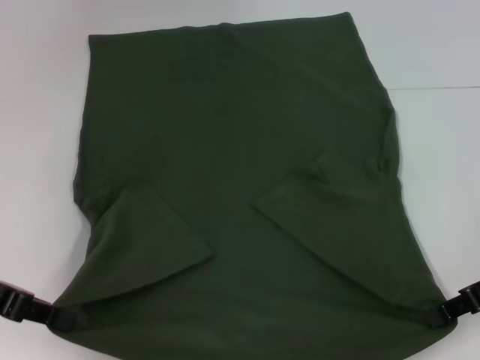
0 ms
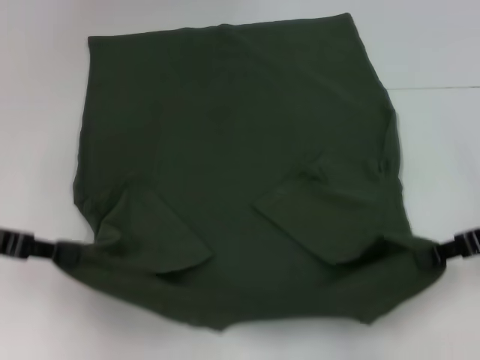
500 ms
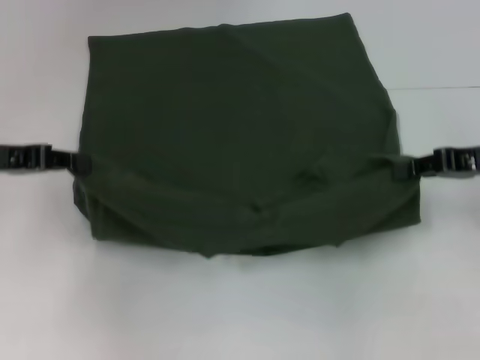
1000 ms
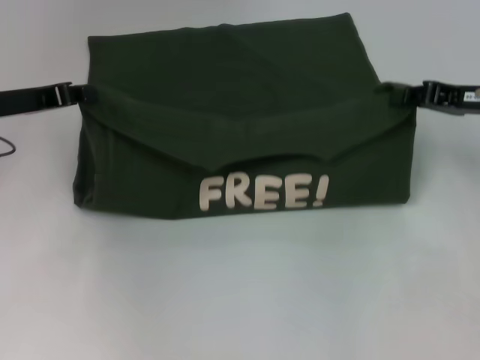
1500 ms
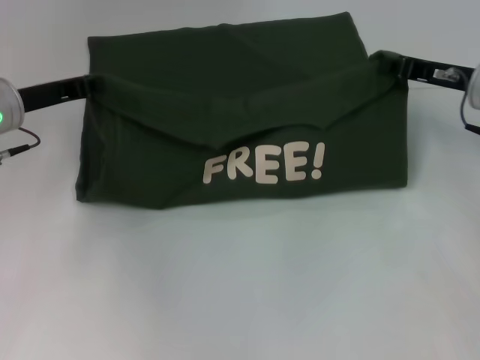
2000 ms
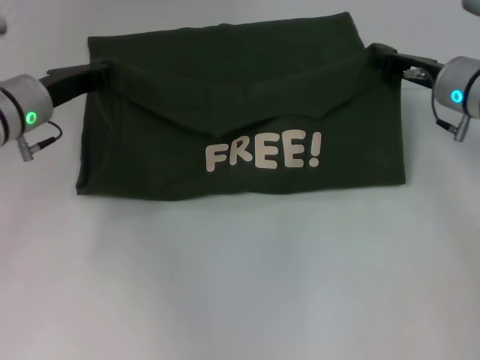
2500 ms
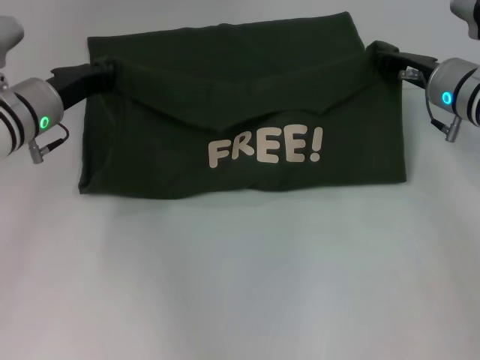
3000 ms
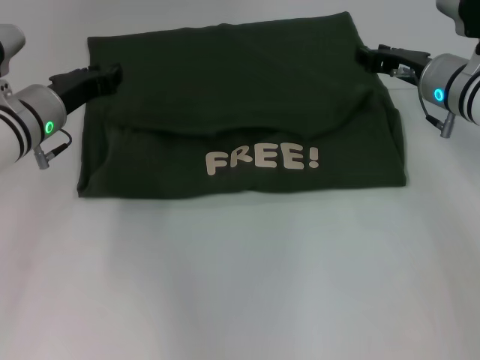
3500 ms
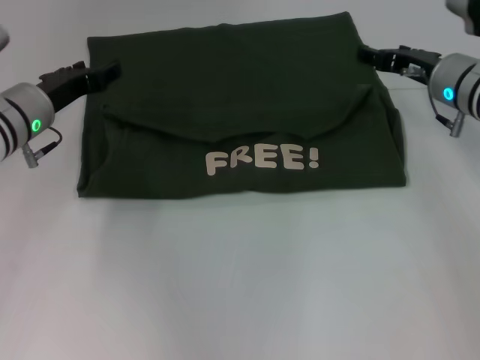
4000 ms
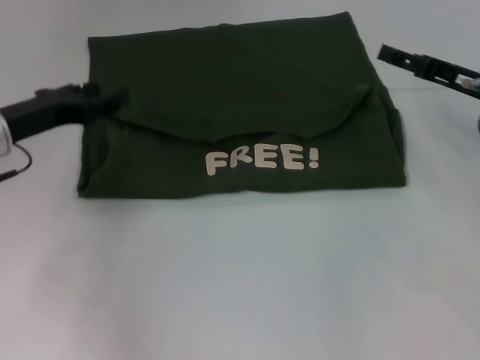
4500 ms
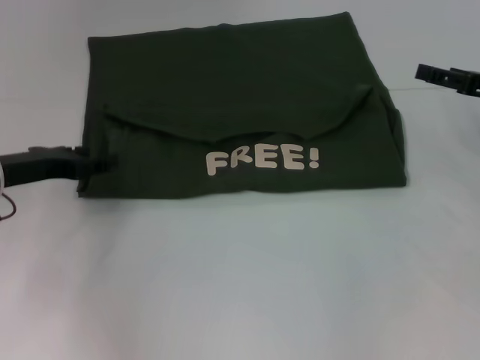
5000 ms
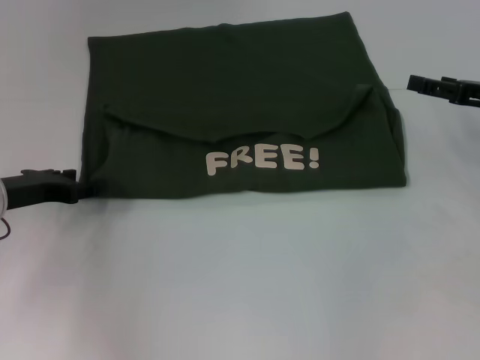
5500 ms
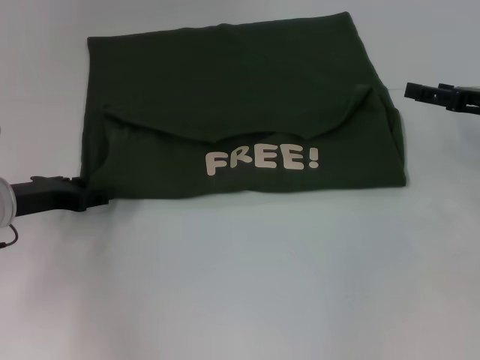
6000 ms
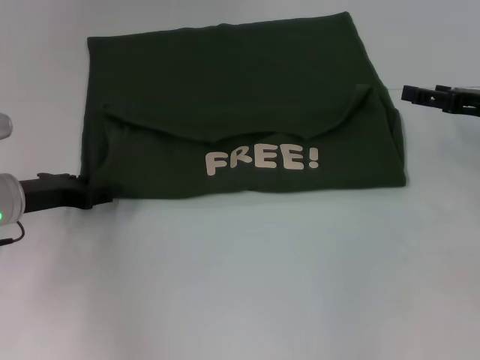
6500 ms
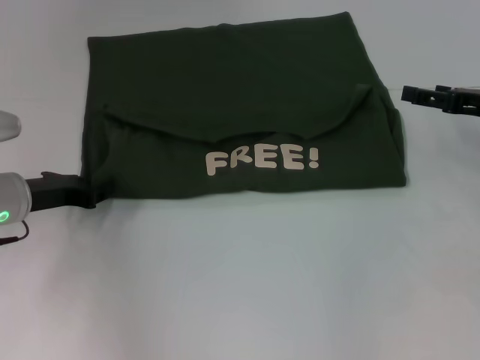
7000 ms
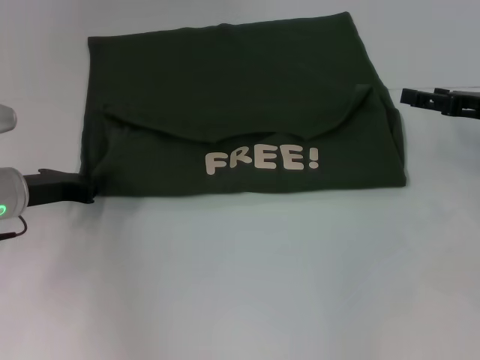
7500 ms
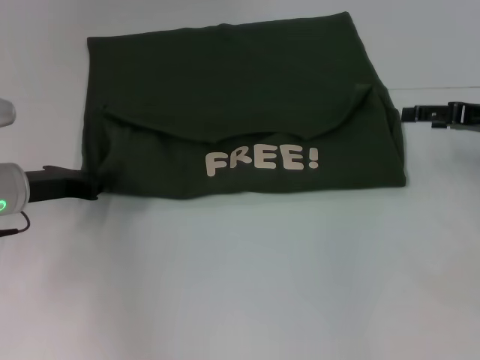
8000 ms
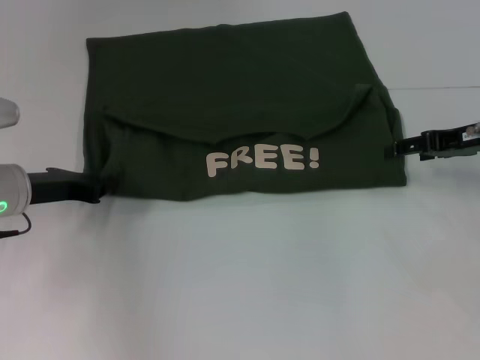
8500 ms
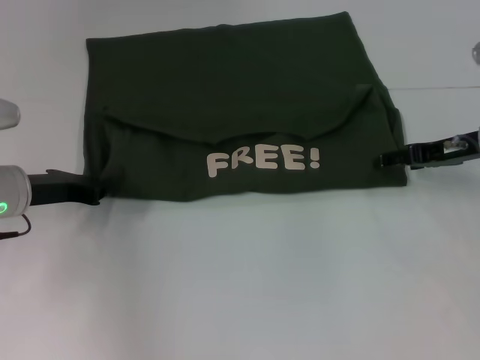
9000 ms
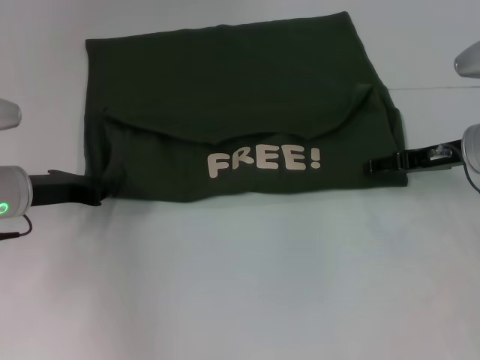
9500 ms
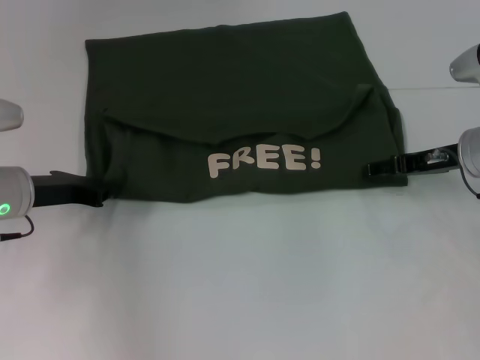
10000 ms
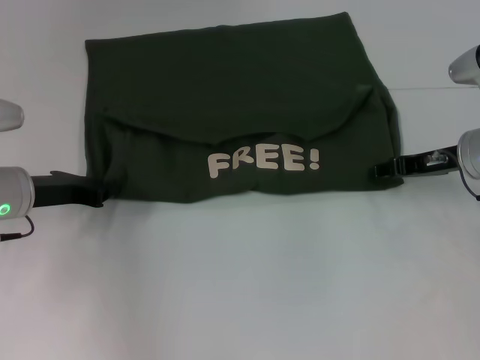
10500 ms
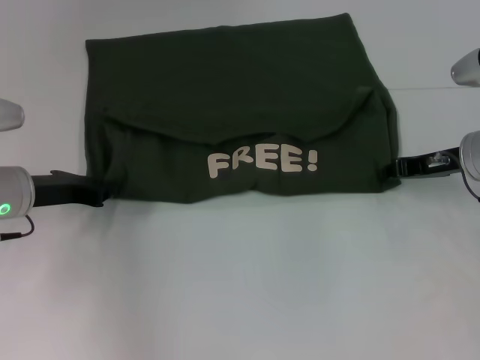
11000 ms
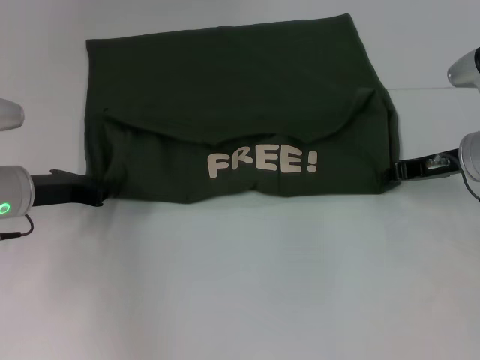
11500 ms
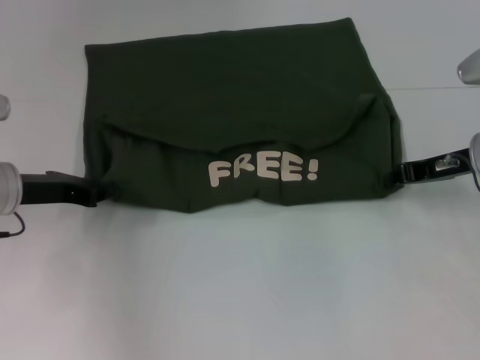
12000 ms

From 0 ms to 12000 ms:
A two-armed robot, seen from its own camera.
Step, from 0 ms to 3500 ms: Fold the clothes with your left hand.
Step, from 0 ms to 3500 ms: Fold the clothes with your right hand.
From 0 ms to 2000 ms: The grippers both shift forward by some 10 cm.
From 2000 ms to 4000 ms: The left gripper opens its fingers, while the right gripper opens its fingers.
From 4000 ms to 6000 ms: The left gripper goes roughly 5 cm backward, while the right gripper travels to the right and backward by about 10 cm.
From 6000 ms to 8000 ms: The left gripper closes.
From 8000 ms to 10000 ms: The right gripper shifts approximately 5 cm to the left.
From 10000 ms to 12000 ms: The right gripper closes up.

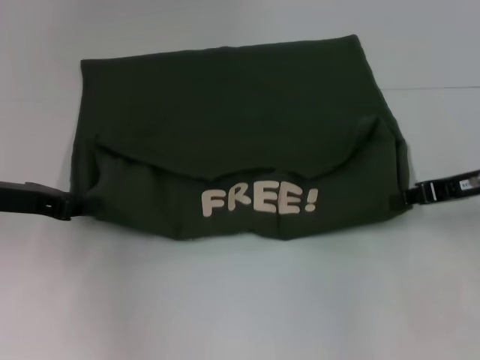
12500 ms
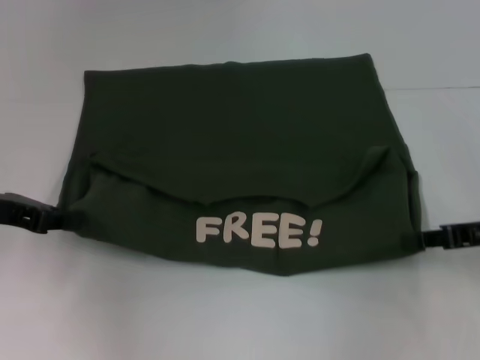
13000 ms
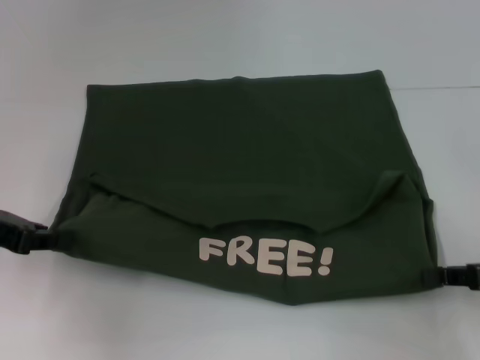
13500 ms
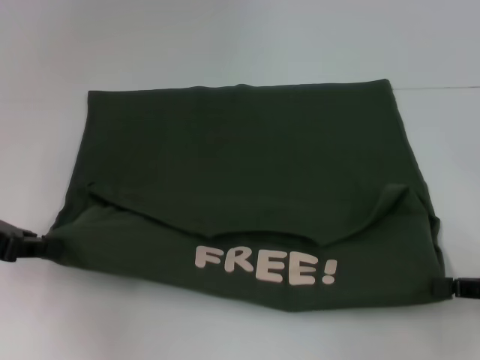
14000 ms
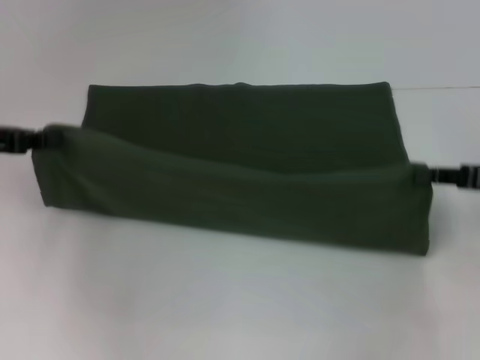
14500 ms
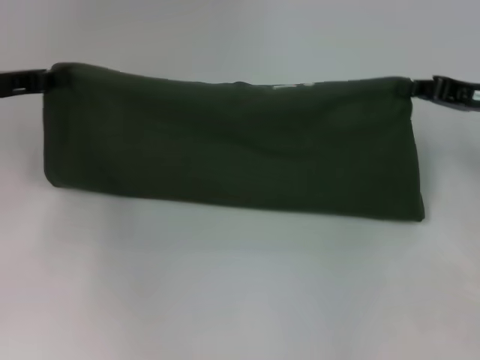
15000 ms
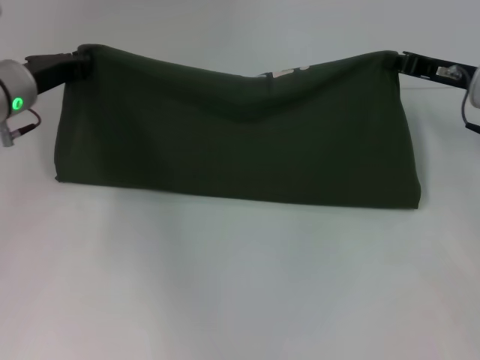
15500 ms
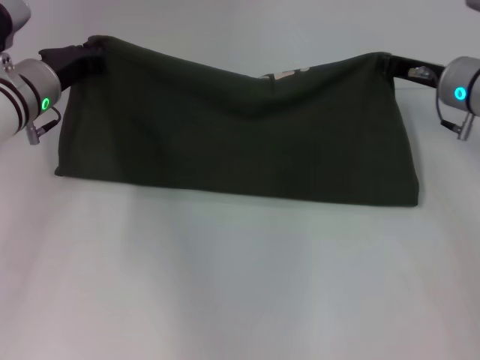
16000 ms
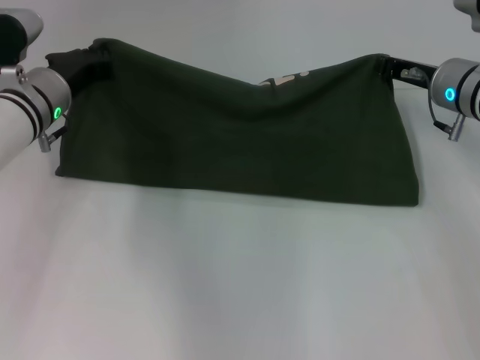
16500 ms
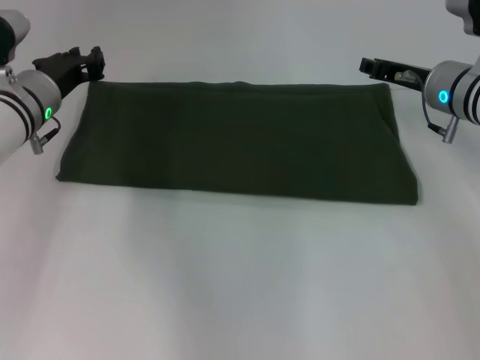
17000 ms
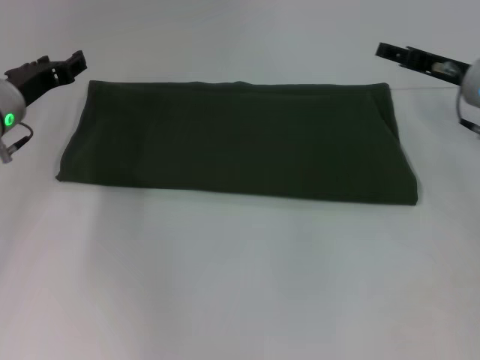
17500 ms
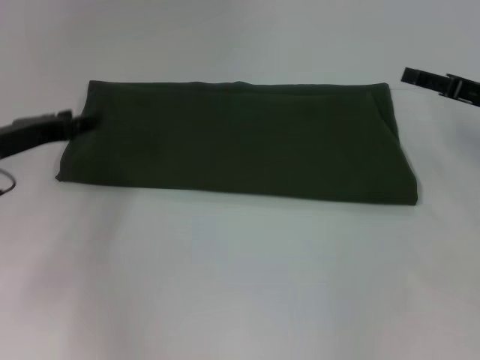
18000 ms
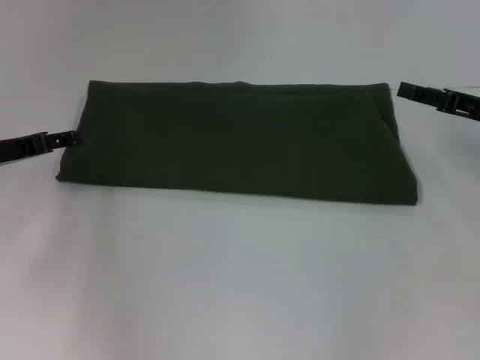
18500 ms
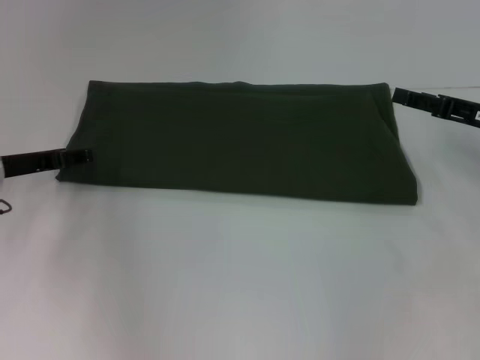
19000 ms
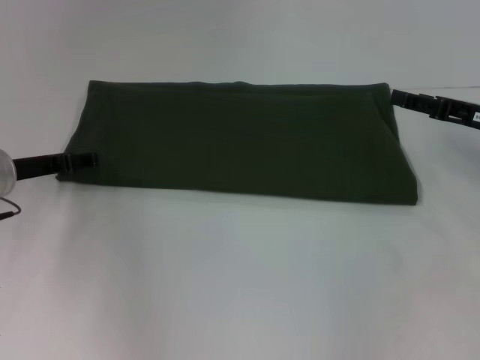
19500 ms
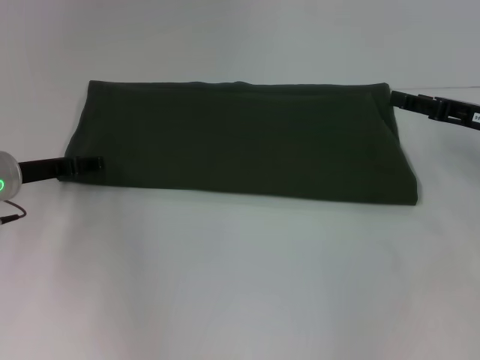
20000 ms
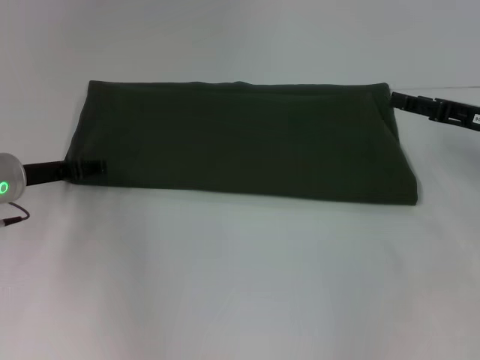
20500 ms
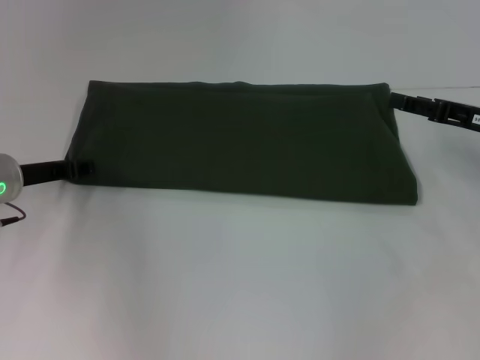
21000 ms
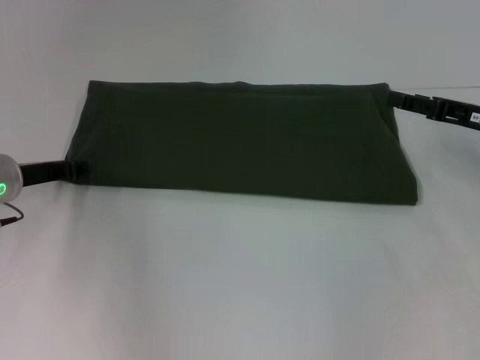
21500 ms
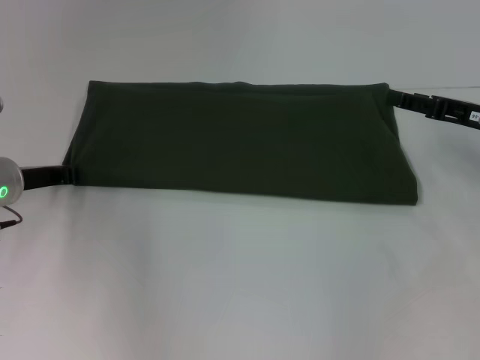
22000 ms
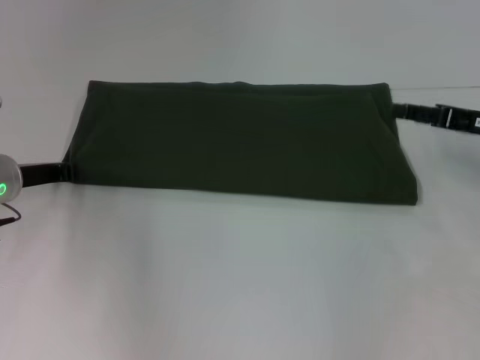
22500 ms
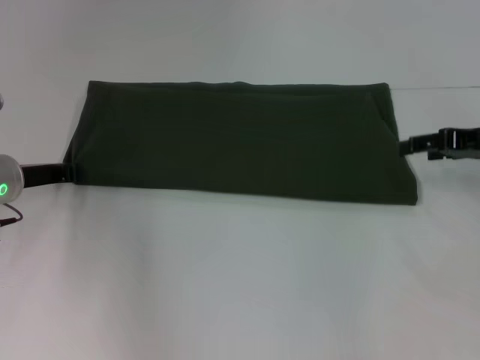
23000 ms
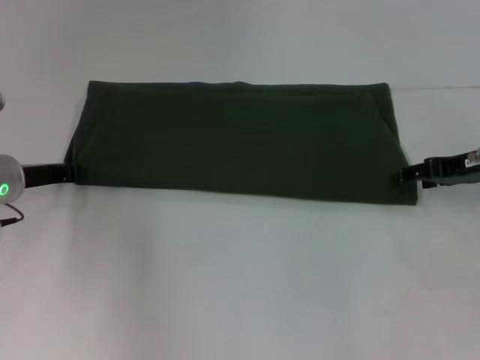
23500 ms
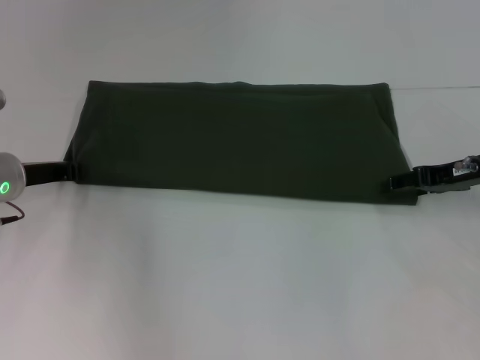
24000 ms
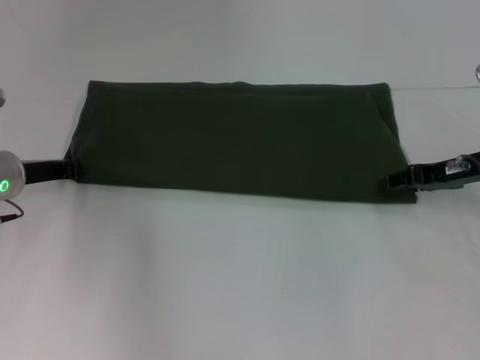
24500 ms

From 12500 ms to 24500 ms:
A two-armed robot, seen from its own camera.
Step, from 14000 ms to 17000 ms: Fold the clothes with your right hand.
From 12500 ms to 14500 ms: The left gripper goes some 5 cm upward.
From 14500 ms to 16500 ms: The right gripper heads forward and to the left, covering approximately 15 cm; the left gripper goes roughly 15 cm to the right, forward and downward.
From 16500 ms to 18500 ms: The right gripper travels to the right and backward by roughly 10 cm, and opens up, while the left gripper moves to the left and backward, roughly 10 cm, and opens.
From 18500 ms to 20500 ms: The grippers move only a little.

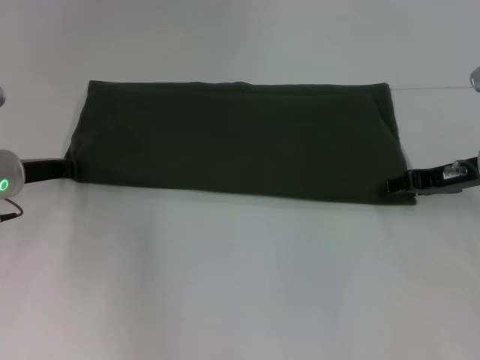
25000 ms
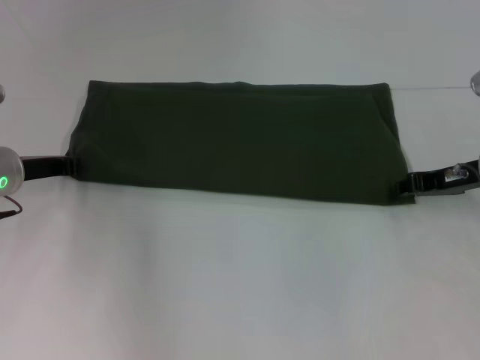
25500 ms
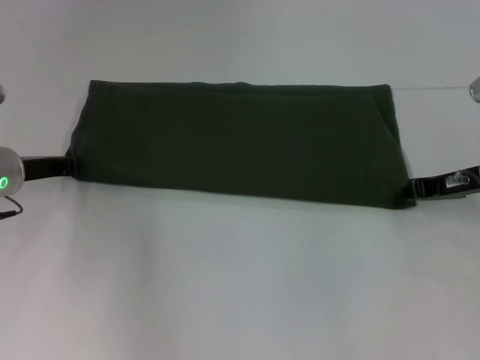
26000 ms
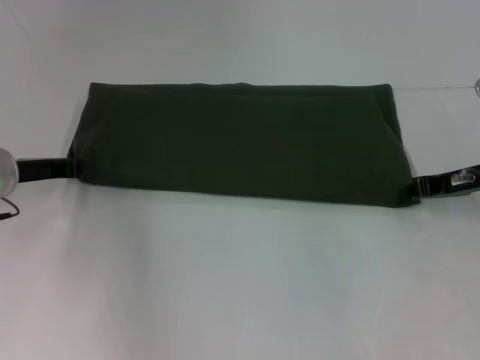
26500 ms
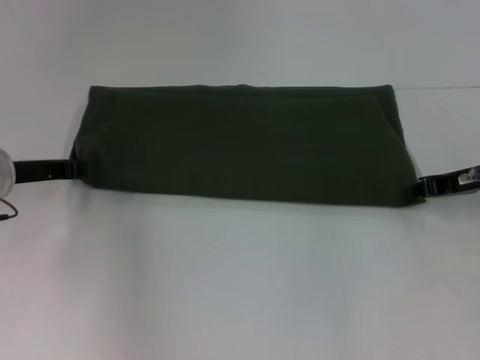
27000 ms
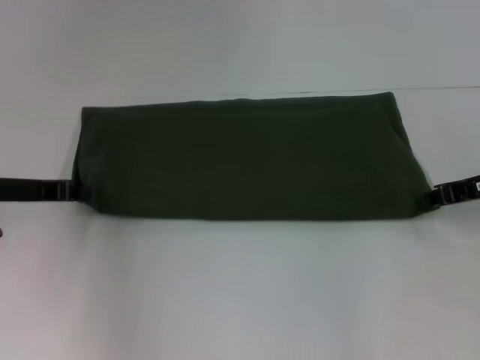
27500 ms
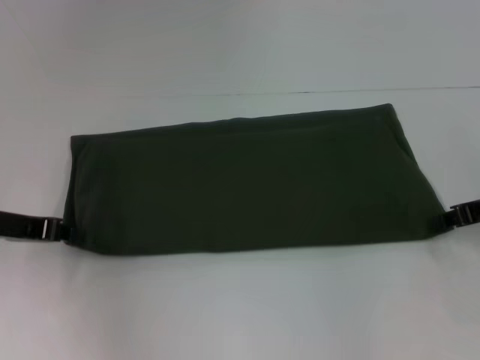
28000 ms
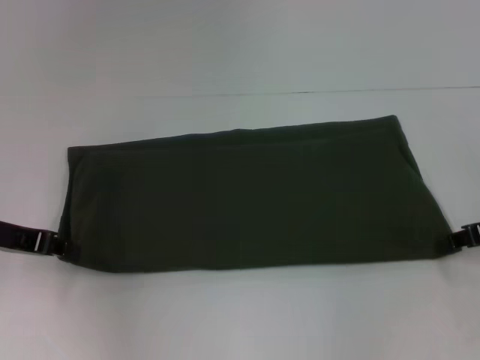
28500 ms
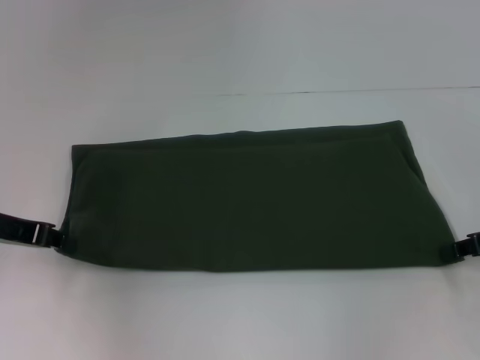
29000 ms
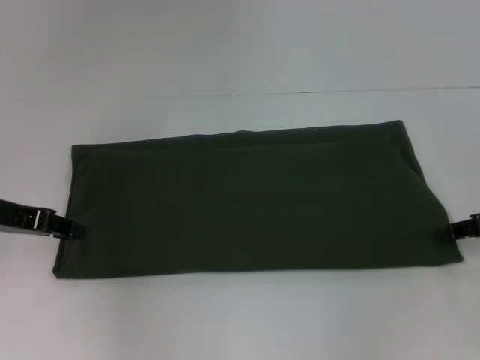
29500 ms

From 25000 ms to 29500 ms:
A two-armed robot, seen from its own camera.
From 25000 ms to 27000 ms: The right gripper closes its fingers.
From 27000 ms to 29500 ms: The left gripper shifts by approximately 5 cm. The right gripper travels backward by some 5 cm.
